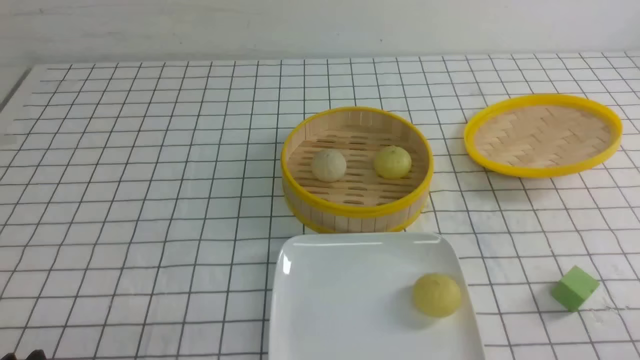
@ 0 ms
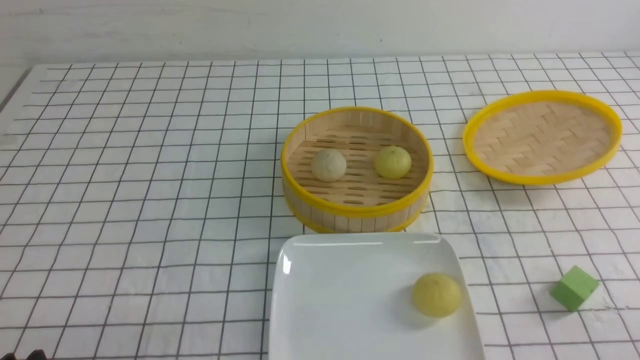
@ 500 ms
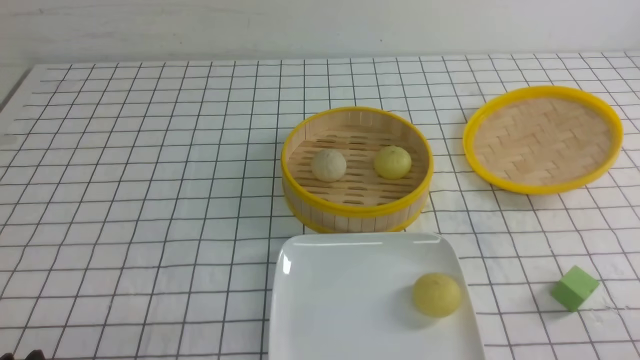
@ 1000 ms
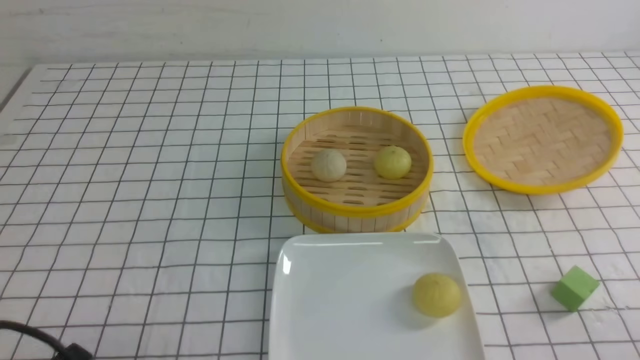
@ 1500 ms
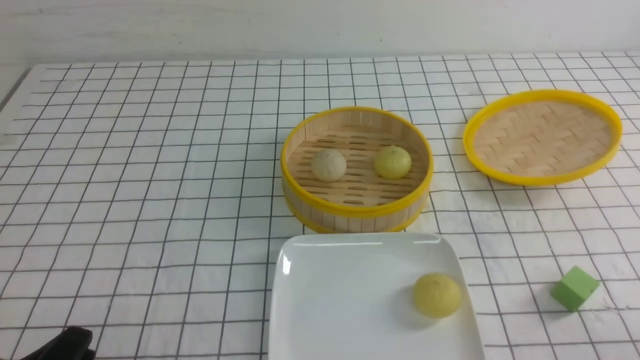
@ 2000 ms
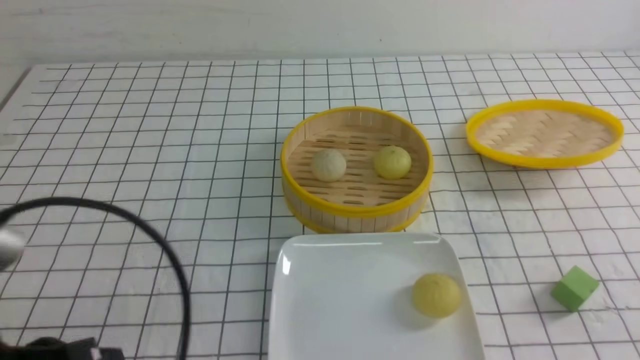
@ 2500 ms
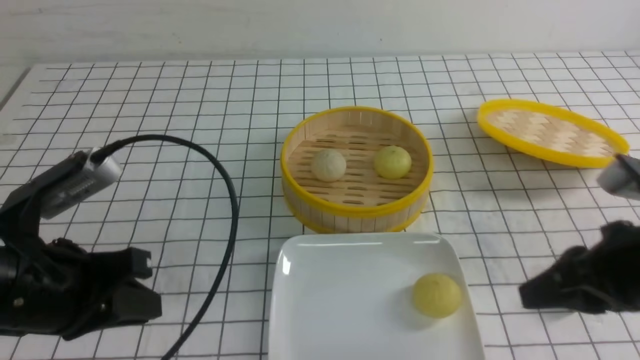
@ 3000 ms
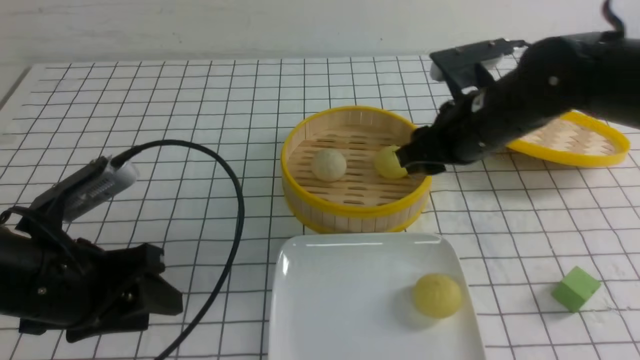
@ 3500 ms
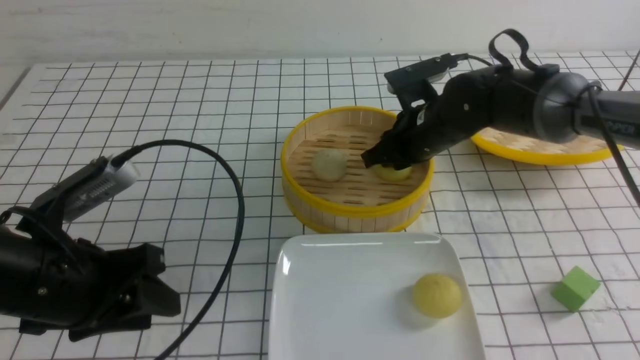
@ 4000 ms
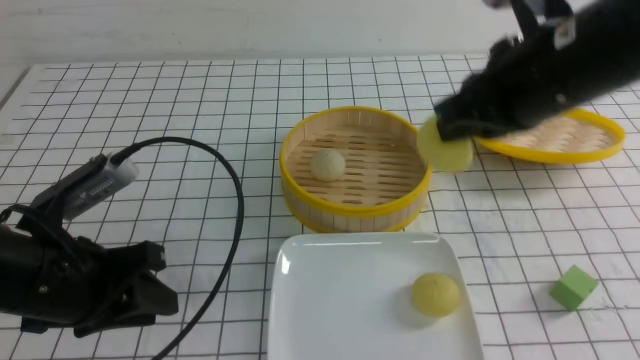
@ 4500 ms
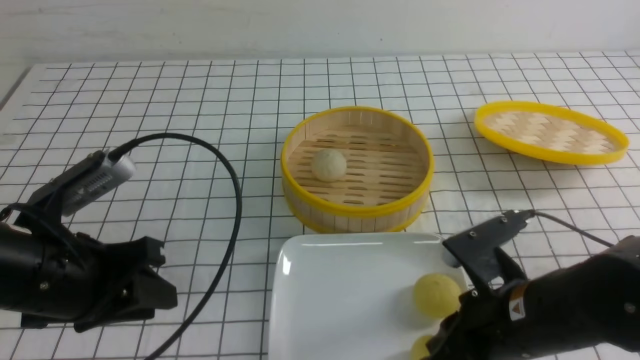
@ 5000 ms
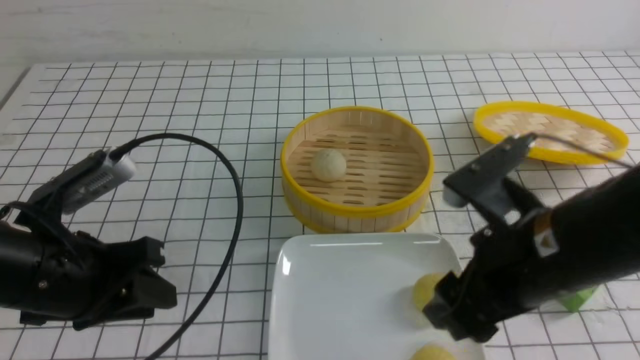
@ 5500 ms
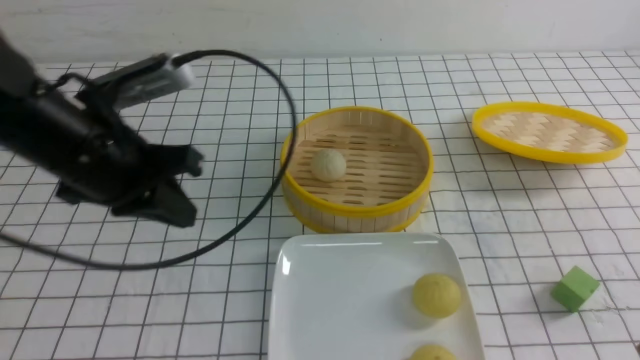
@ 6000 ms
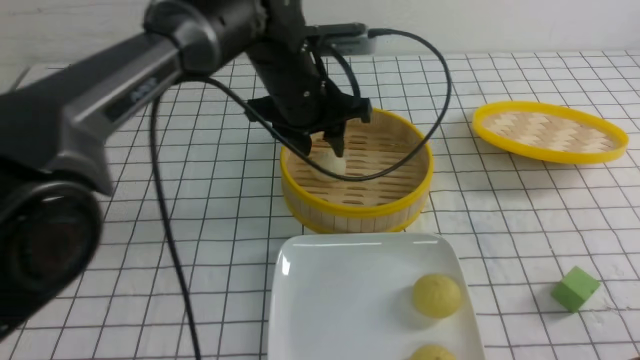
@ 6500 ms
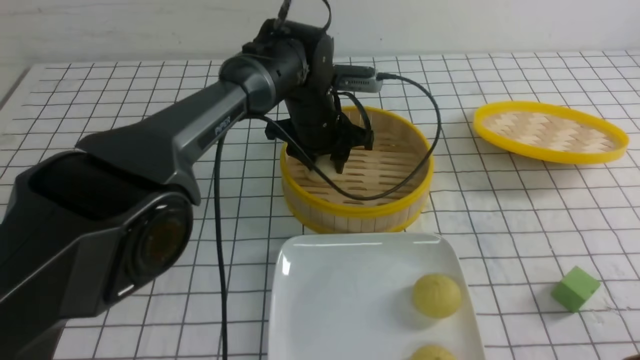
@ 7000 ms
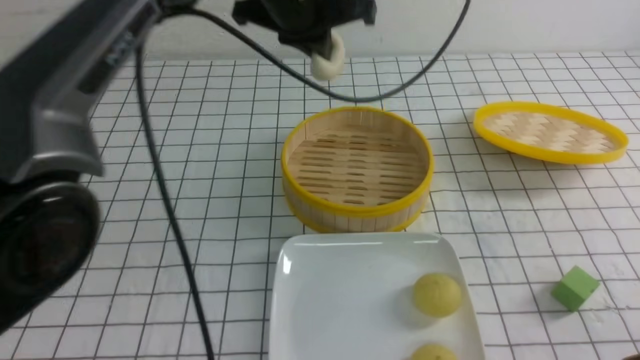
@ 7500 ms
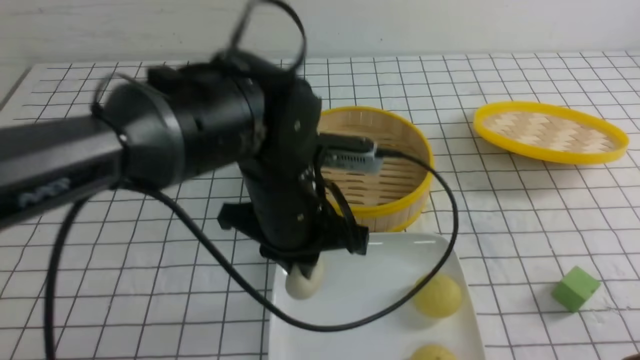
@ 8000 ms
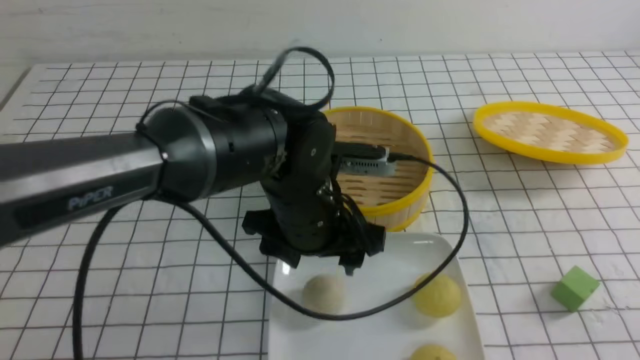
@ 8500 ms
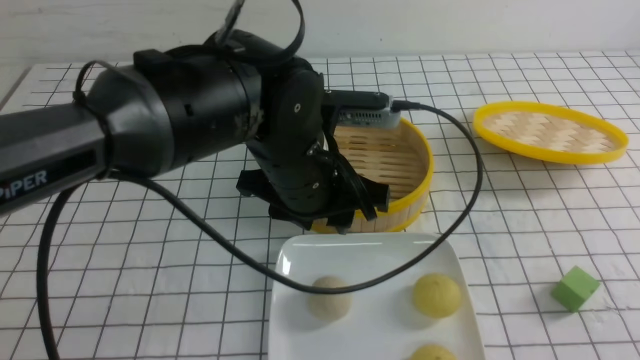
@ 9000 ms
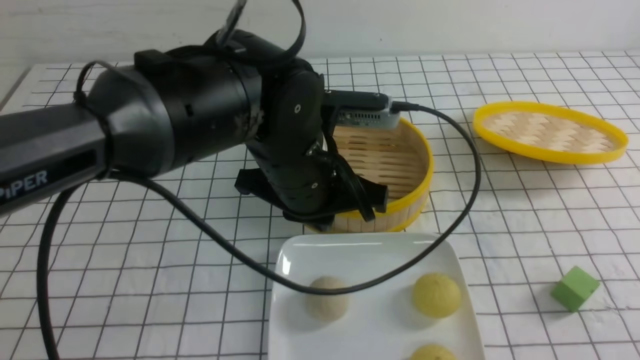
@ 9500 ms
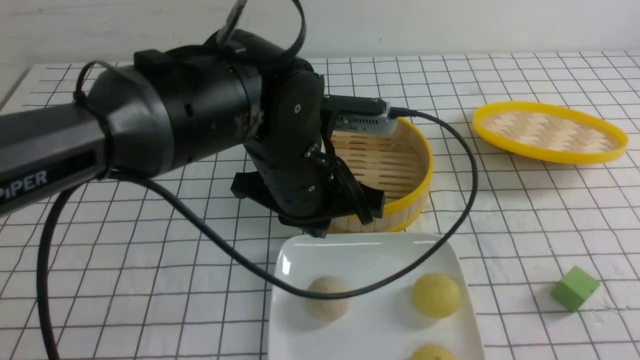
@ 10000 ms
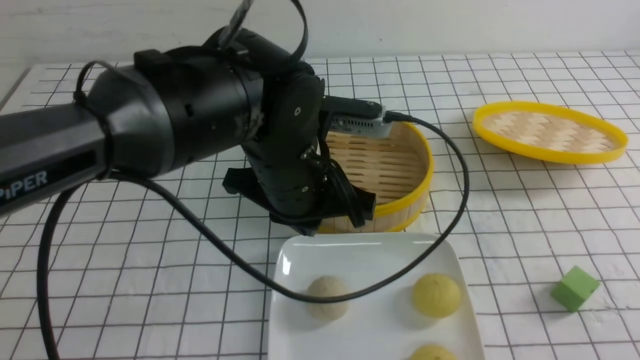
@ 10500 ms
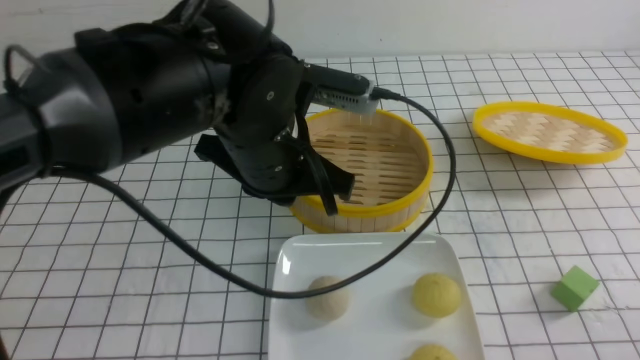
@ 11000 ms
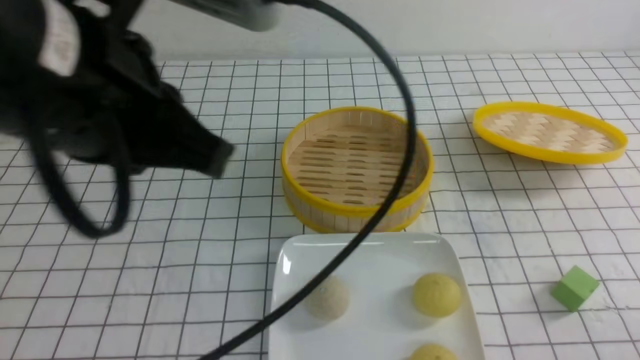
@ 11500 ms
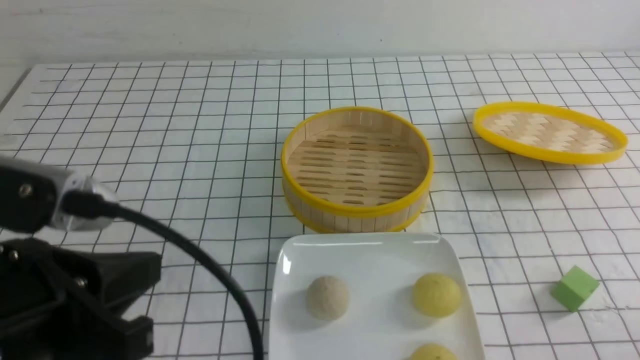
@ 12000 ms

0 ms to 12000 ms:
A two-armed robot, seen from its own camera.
Step, 0 ms to 4000 ms: use the right arm to grab the steamed stuffed bun that is closest to it.
Step, 4500 ms to 5000 ms: use the right arm to put the steamed stuffed bun into the plate.
Step, 5500 ms to 7000 ms: use the left arm to grab the steamed stuffed bun that is closest to it.
Step, 7500 ms to 8500 ms: use the left arm to put the steamed stuffed bun into the plate.
2000 ms to 4000 ms: The right gripper goes roughly 40 cm forward and to the left, and closes, then reopens. Meanwhile the left gripper is displaced forward by roughly 15 cm.
4000 ms to 6000 ms: The right gripper heads backward, covering some 30 cm, and closes its fingers. Meanwhile the left gripper shifts about 10 cm forward and upward, and closes its fingers.
6000 ms to 8000 ms: The left gripper shifts approximately 15 cm to the right, and opens, then closes again.
8000 ms to 10000 ms: The right gripper shifts roughly 5 cm backward, while the left gripper opens, then closes again.
10000 ms to 12000 ms: The right gripper goes about 10 cm downward. The left gripper goes roughly 25 cm backward and to the left.

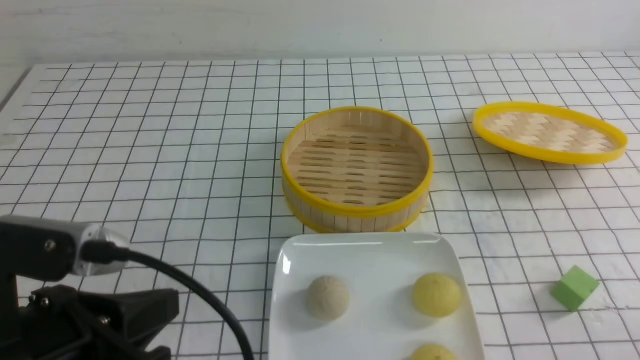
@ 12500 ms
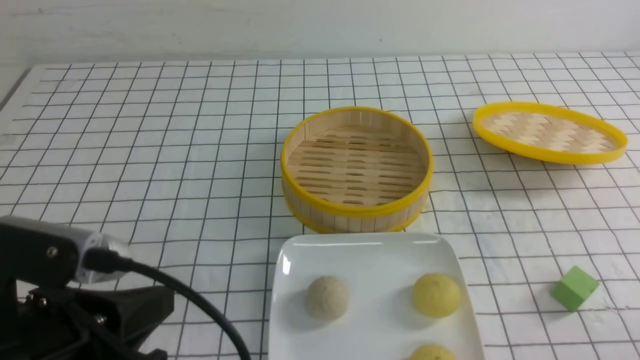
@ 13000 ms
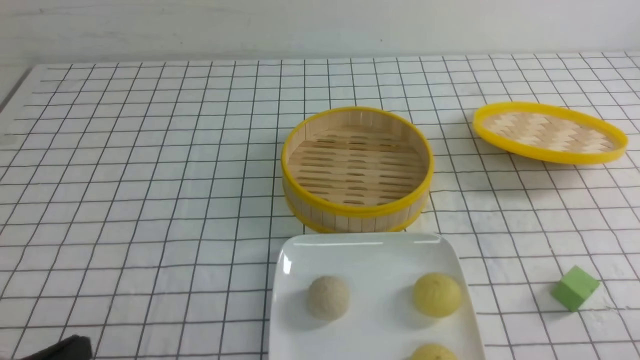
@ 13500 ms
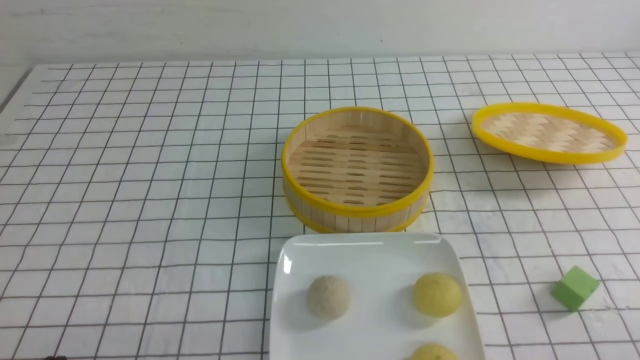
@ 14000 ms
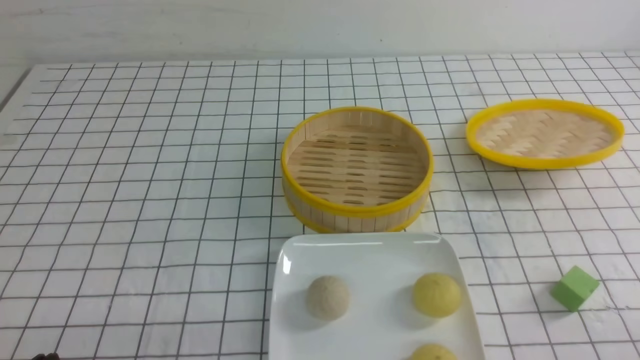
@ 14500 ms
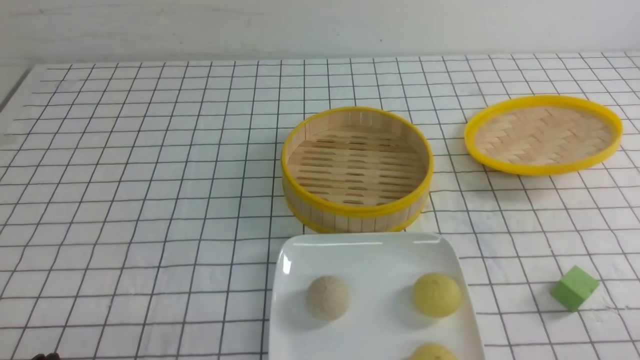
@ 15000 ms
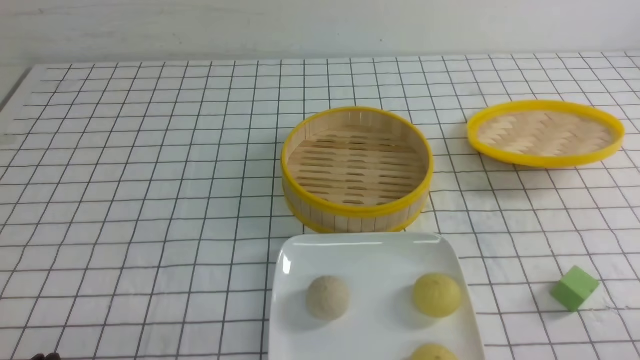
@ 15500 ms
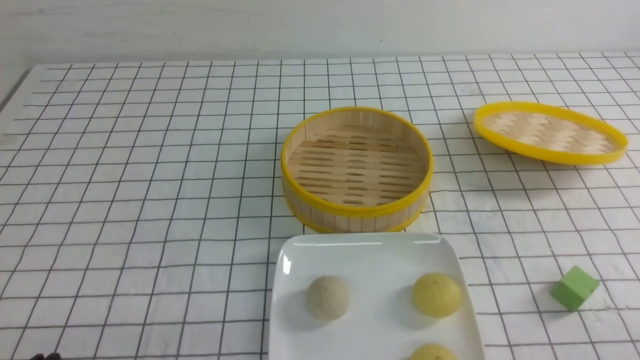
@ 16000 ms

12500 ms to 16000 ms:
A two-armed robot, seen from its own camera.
12500 ms to 14500 ms: The left gripper goes roughly 15 cm downward and to the left.
14500 ms to 16000 ms: Both grippers stay about where they are.
